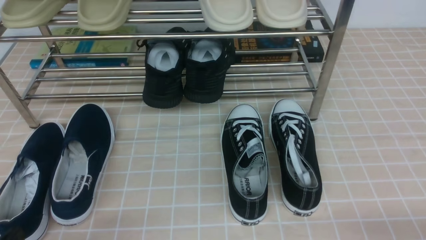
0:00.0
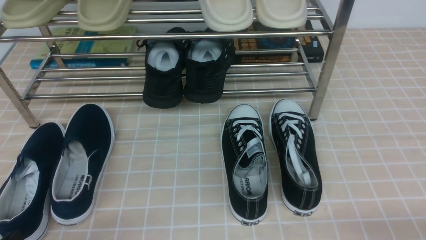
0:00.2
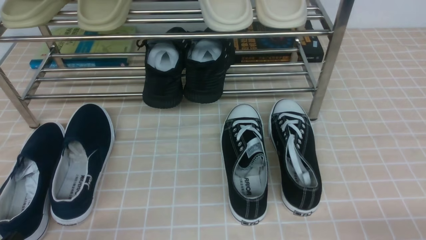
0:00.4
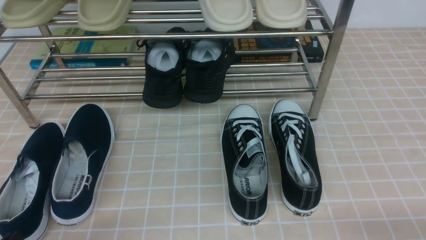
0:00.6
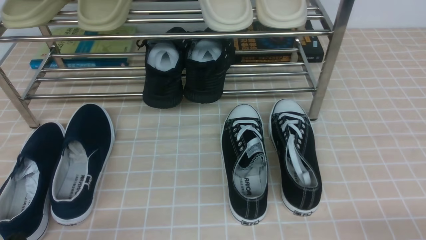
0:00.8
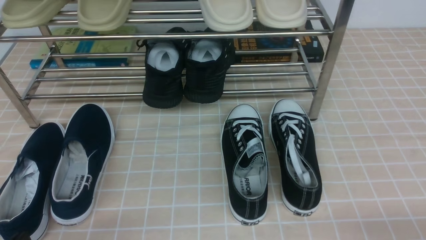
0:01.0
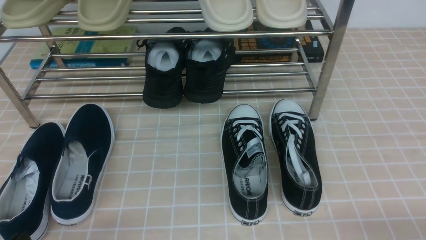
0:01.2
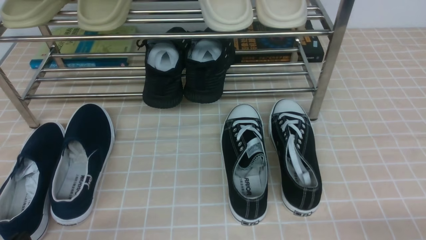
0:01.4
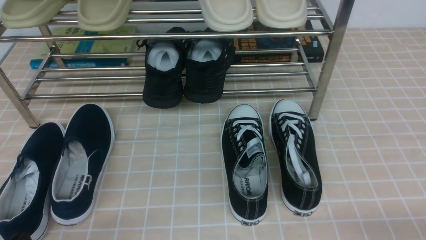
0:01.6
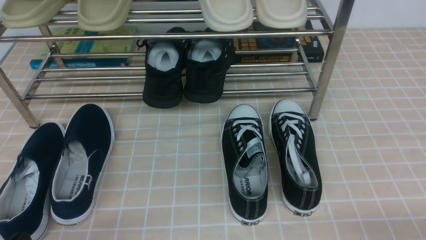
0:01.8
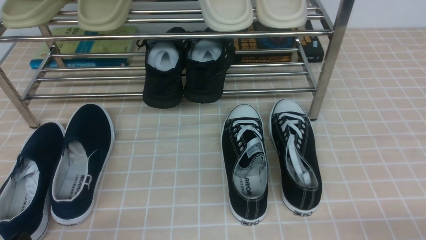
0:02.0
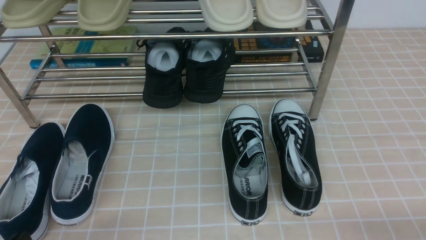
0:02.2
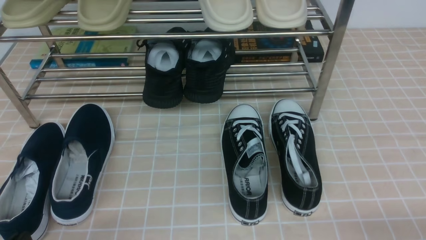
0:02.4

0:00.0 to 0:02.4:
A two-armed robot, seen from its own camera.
0:00.0 to 0:02.4: Both grippers stay put.

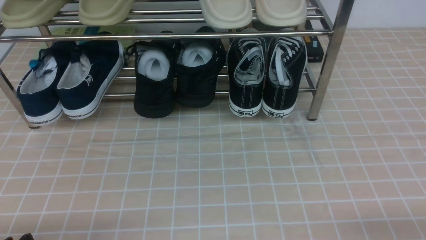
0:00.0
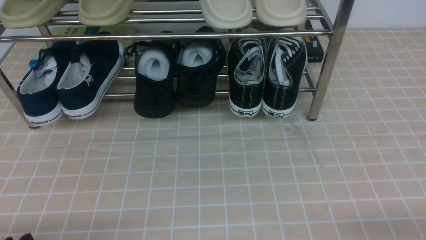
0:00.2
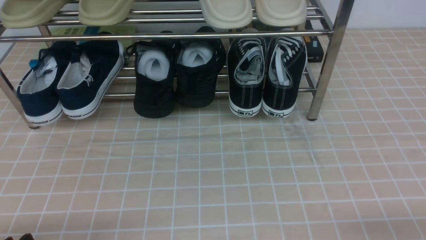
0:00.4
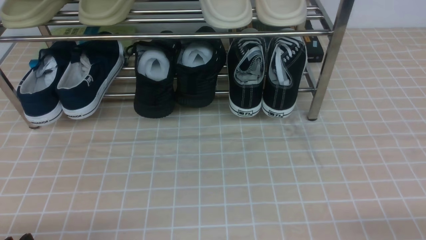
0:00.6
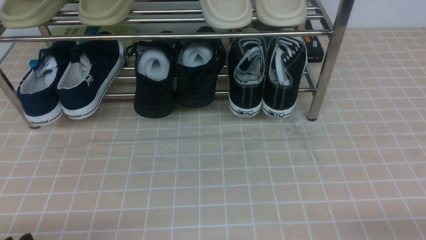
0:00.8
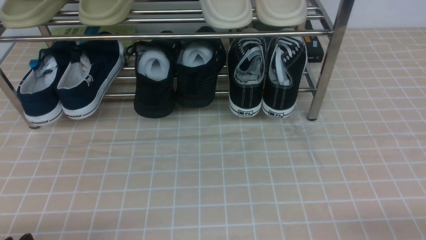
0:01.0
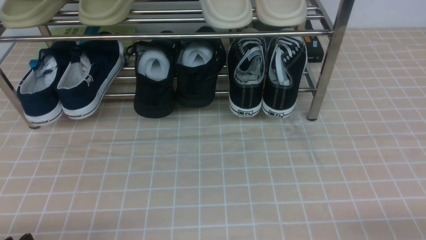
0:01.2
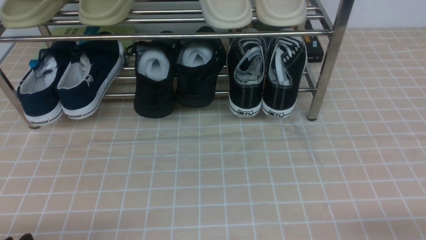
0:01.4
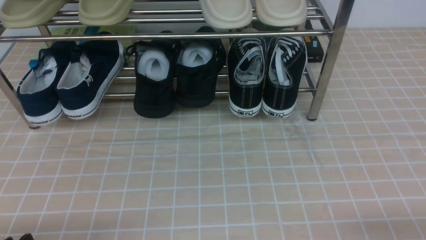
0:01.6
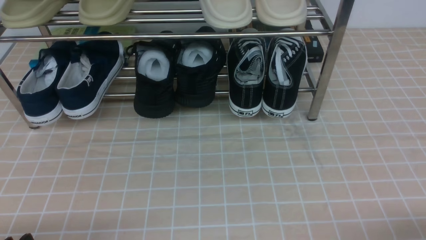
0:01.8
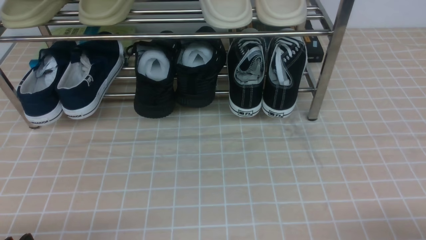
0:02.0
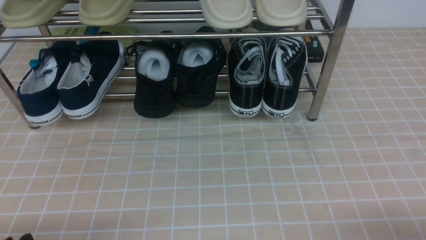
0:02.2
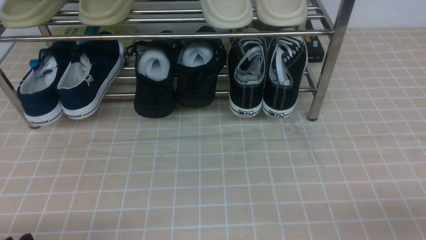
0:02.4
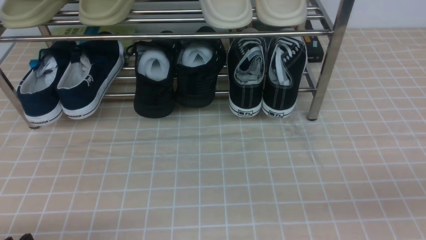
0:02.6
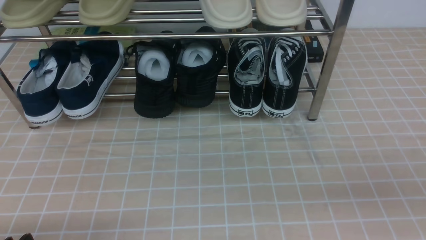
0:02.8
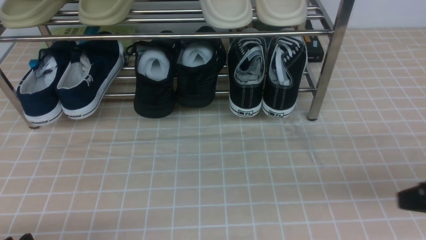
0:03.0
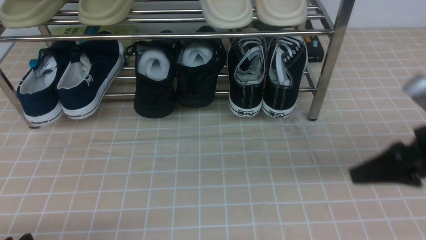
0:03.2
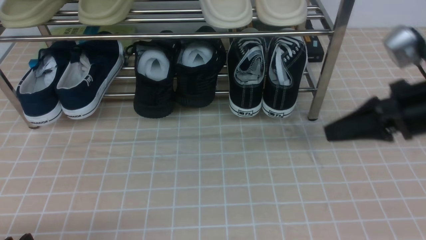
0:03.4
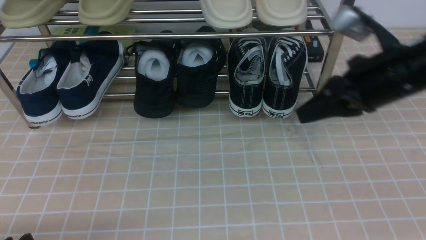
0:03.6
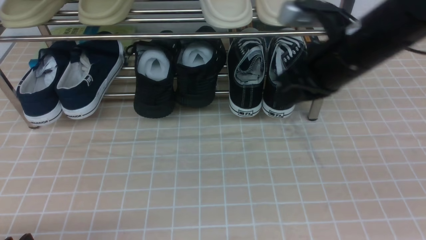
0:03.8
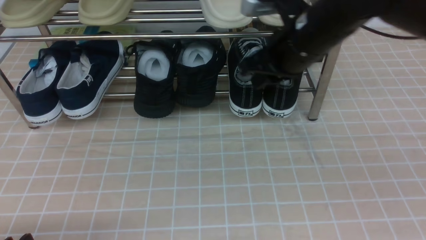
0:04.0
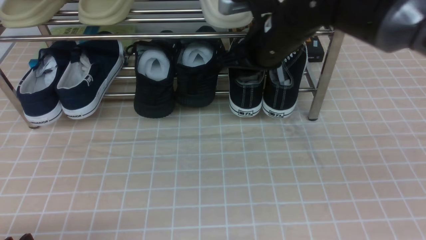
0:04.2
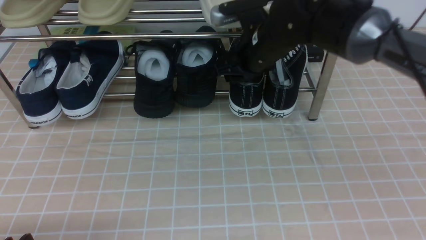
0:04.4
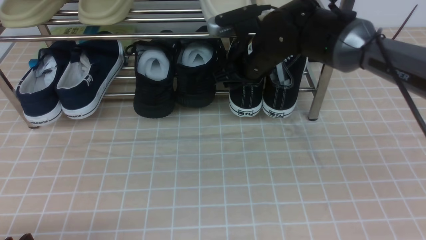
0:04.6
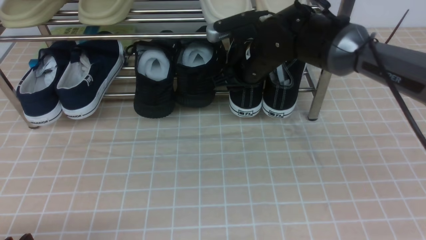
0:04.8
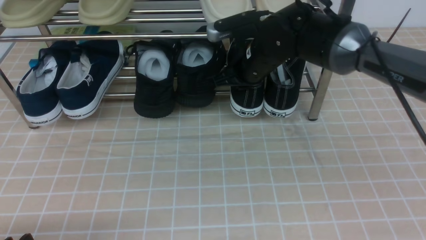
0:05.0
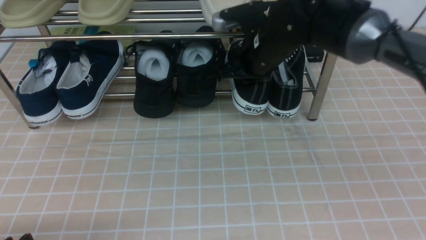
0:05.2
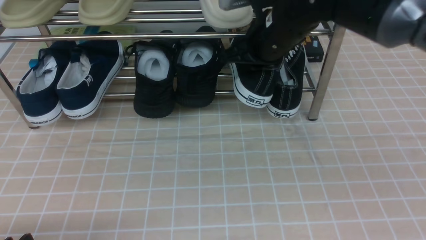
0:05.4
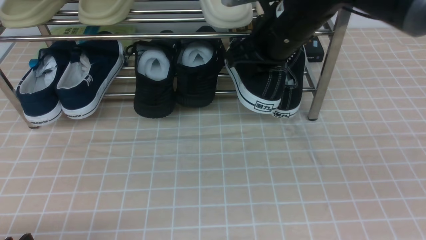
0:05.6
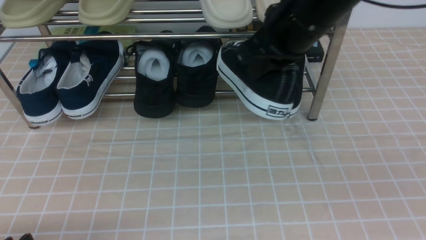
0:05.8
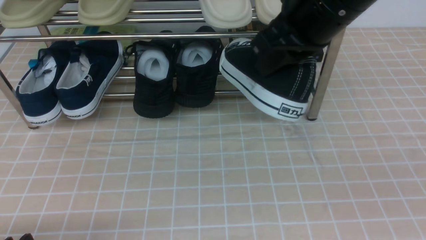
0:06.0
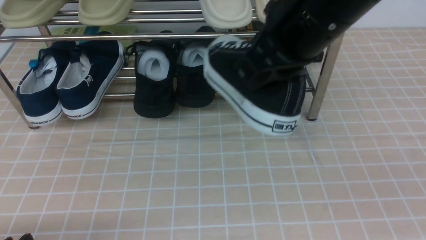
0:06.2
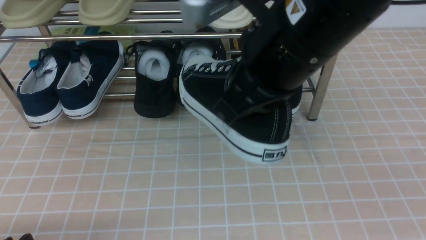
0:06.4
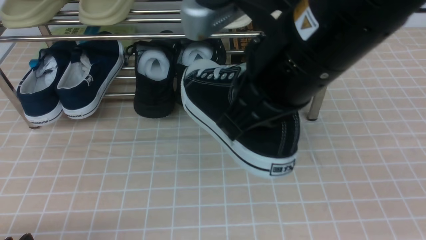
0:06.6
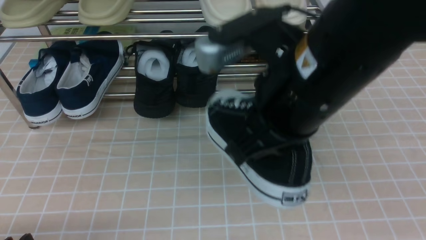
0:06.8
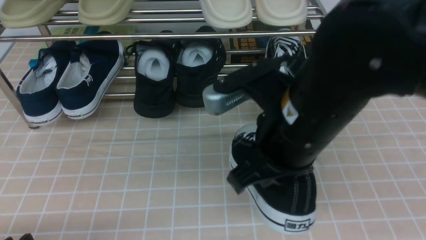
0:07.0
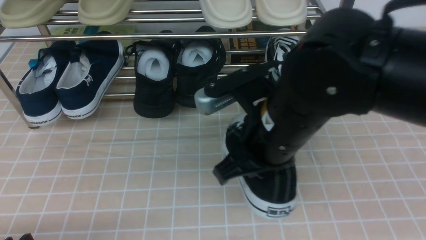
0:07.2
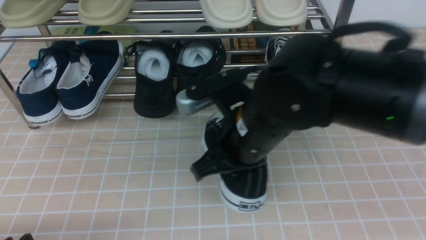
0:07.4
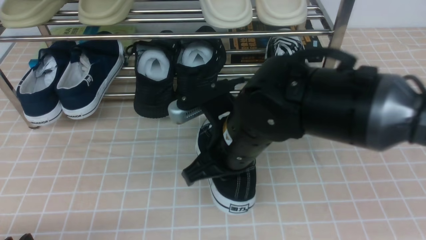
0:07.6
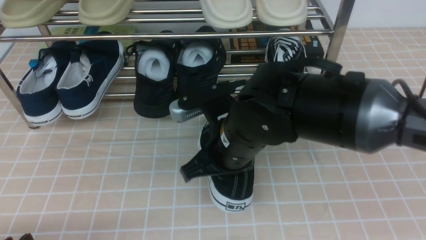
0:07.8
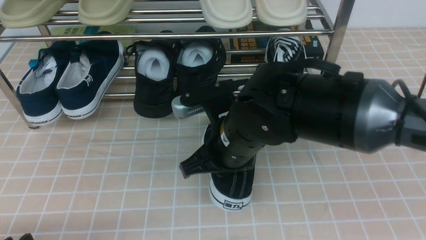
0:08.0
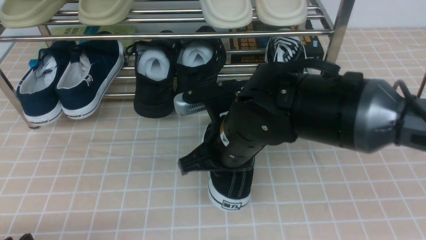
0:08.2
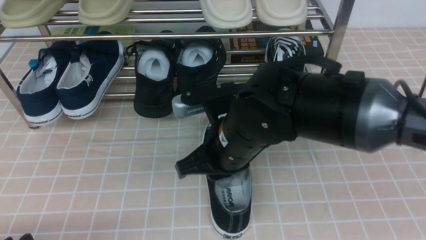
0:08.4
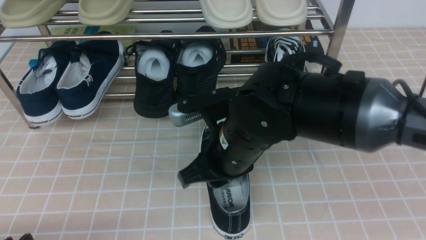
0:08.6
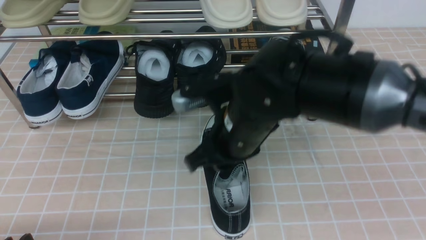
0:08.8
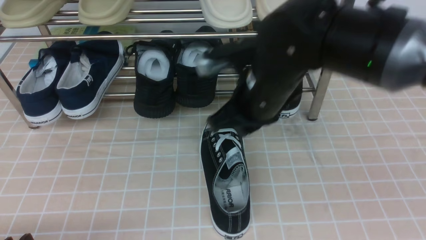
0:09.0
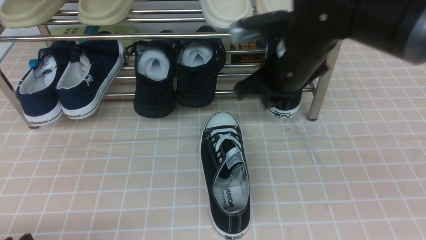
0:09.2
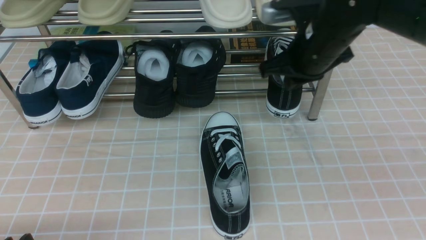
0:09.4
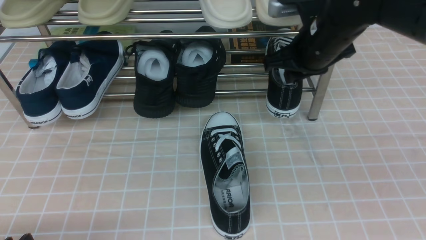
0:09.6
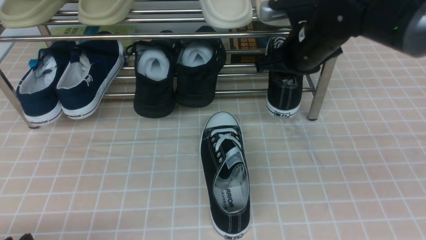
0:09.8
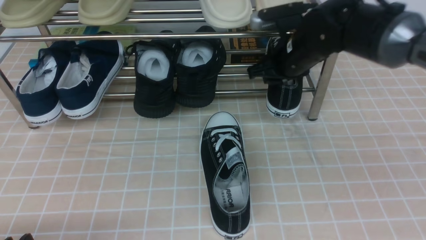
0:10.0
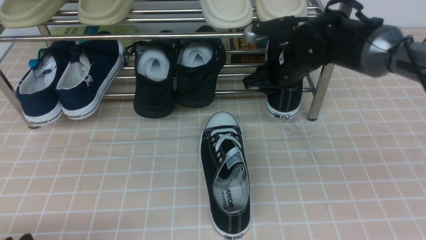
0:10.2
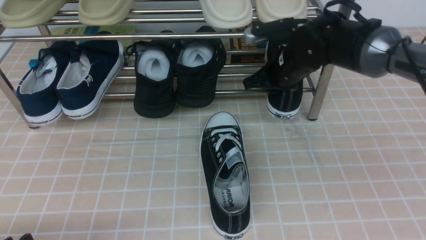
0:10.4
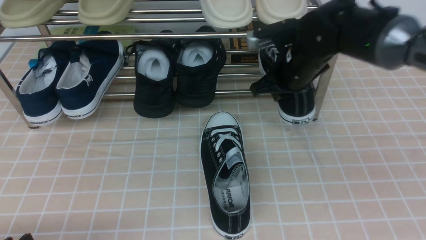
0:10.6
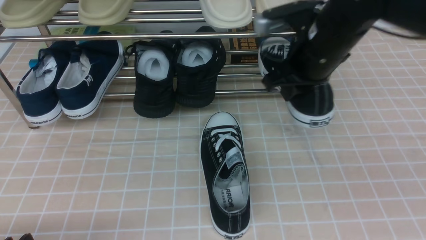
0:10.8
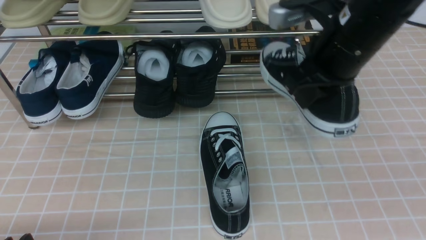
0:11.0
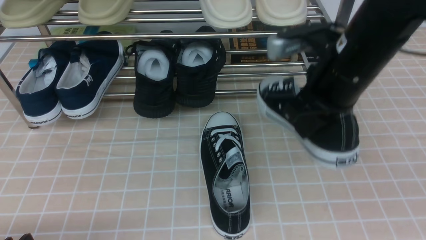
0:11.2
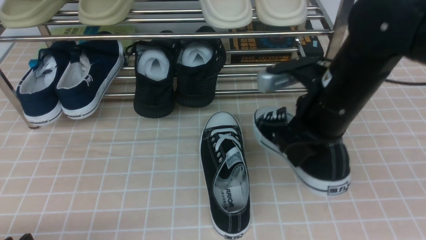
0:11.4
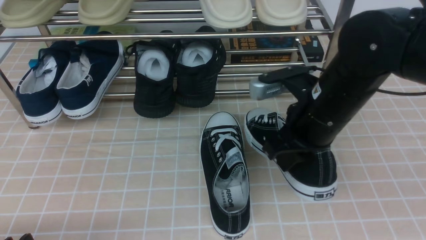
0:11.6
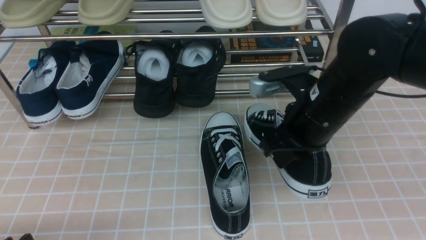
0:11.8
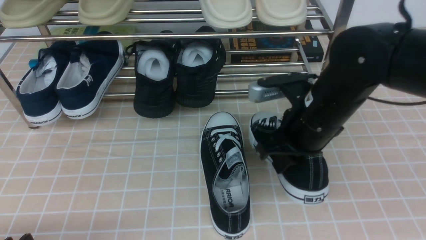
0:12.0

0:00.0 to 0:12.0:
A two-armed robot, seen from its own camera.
Step, 0:00.0 to 0:05.0: use the right arm to clamp a shoe on the right side of the shoe rack.
Step, 0:05.2 to 0:08.4: use the right arm to take out the clamped shoe from the shoe rack and put it down.
Step, 0:08.6 to 0:10.6: use the right arm to clamp a shoe on the right side of the shoe rack.
0:01.6 to 0:03.0: The right gripper moves upward and forward, some 15 cm, and closes its fingers.
0:03.0 to 0:04.4: The right gripper travels forward and to the left by roughly 30 cm, and opens up.
0:04.4 to 0:06.0: The right gripper heads backward and upward, covering some 20 cm, and closes.
0:06.0 to 0:07.6: The right gripper goes some 15 cm downward and to the left.
0:07.6 to 0:09.0: The right gripper travels forward by roughly 5 cm.
0:09.0 to 0:10.4: The right gripper is displaced forward and to the right by about 15 cm, and opens, then closes again.
0:10.4 to 0:12.0: The right gripper moves backward, roughly 15 cm.

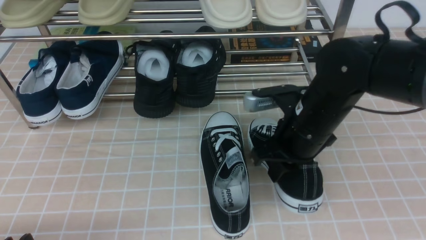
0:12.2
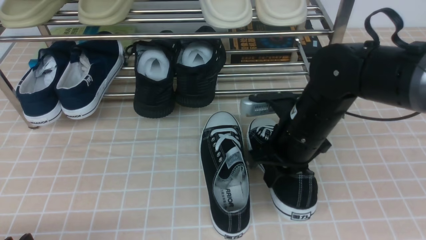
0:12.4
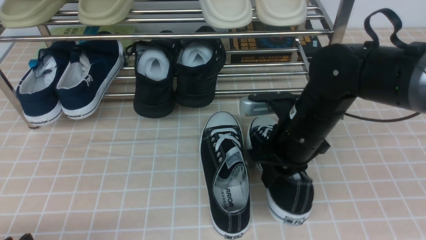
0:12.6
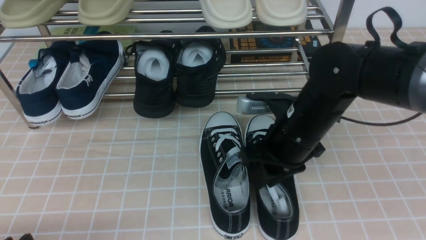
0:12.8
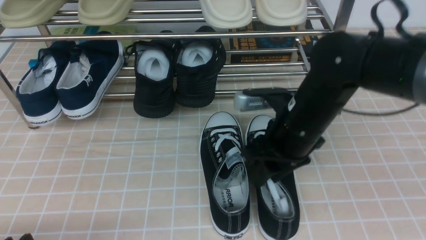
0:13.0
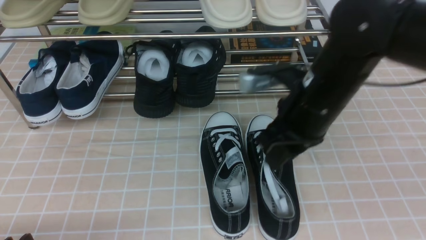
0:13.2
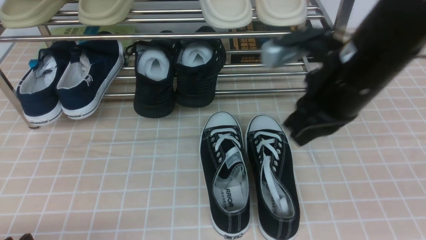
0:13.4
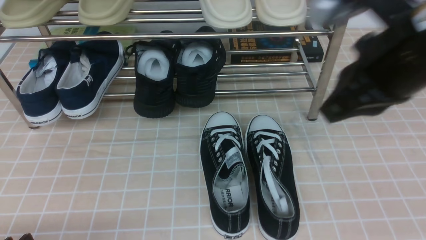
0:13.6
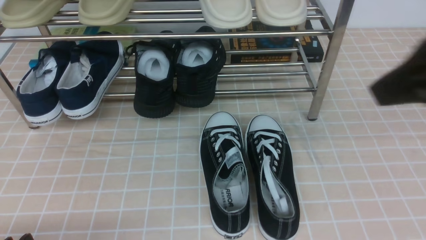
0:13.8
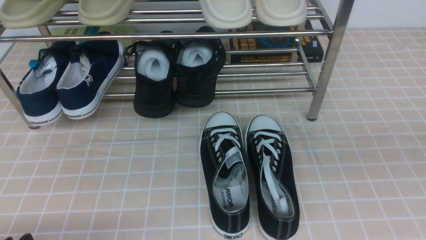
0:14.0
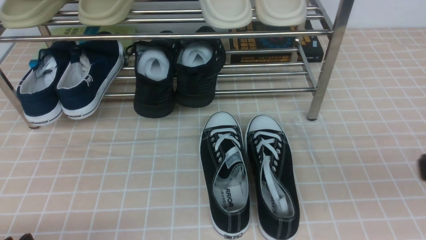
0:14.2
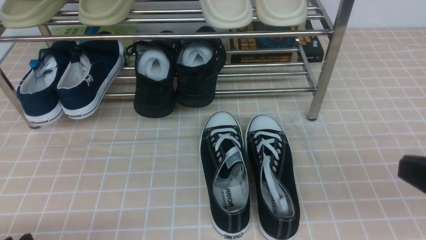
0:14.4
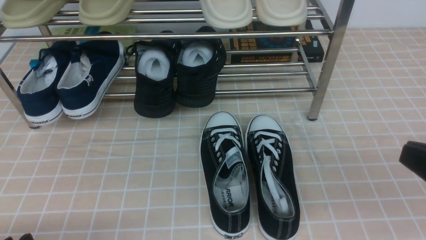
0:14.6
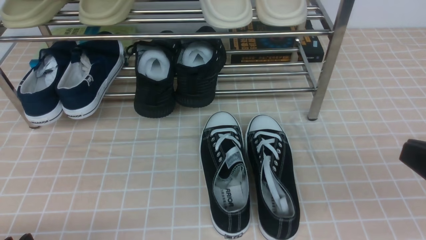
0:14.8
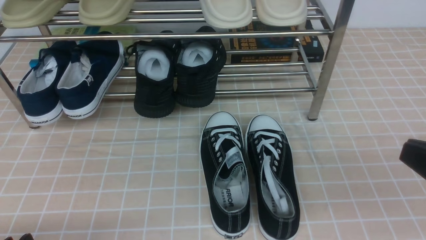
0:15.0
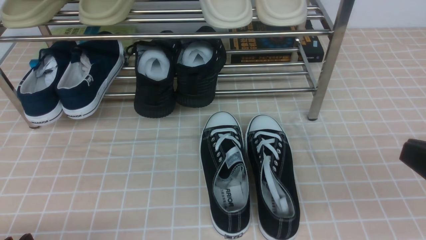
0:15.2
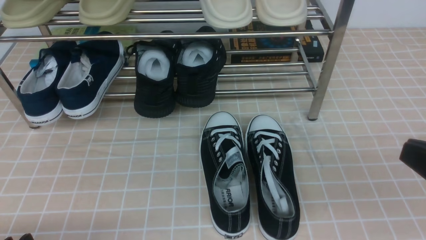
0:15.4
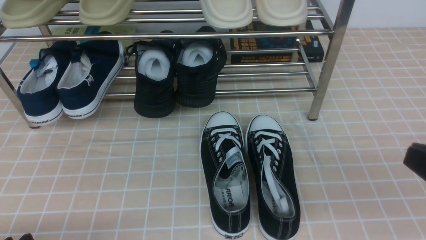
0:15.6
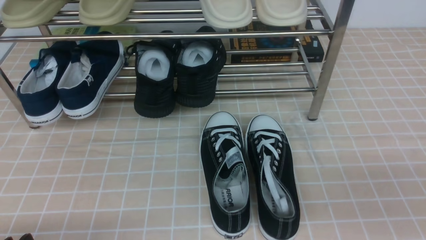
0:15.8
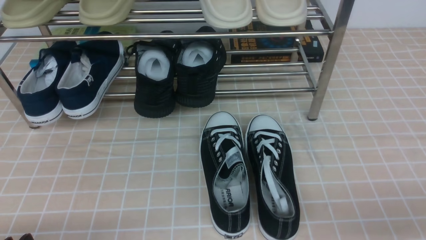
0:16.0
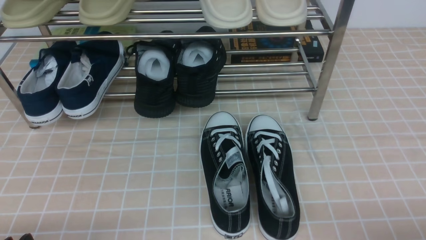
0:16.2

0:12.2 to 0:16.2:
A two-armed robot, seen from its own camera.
0:12.2 to 0:13.6: The right gripper heads upward and backward, covering approximately 20 cm, and opens and closes again.
0:13.6 to 0:14.8: The right gripper travels backward, downward and to the right by about 15 cm.
0:14.8 to 0:16.2: The right gripper heads downward and to the right, covering about 15 cm.
